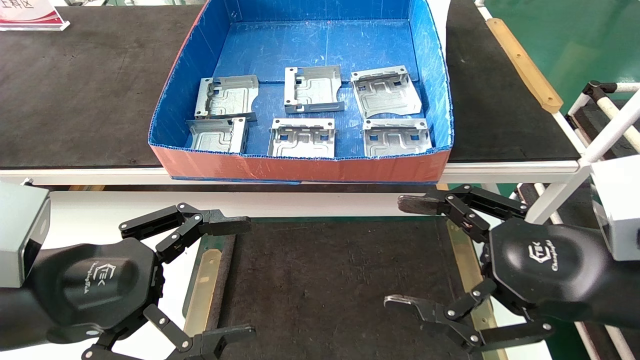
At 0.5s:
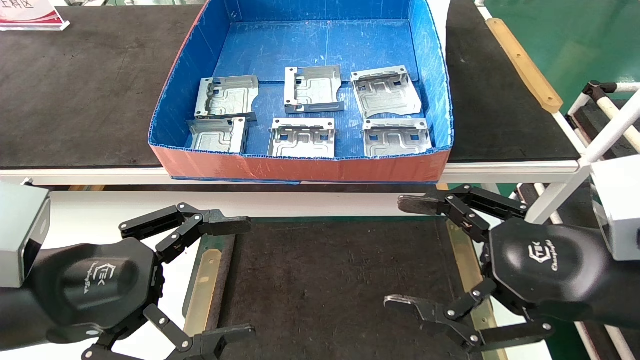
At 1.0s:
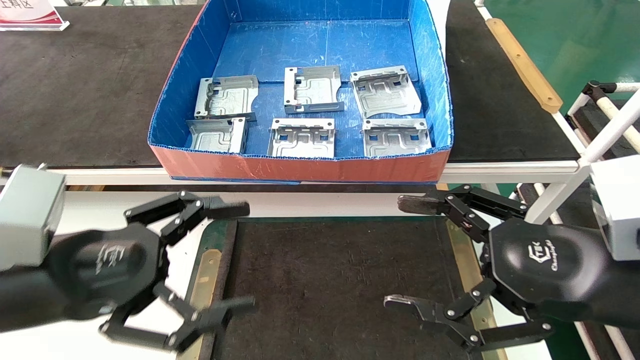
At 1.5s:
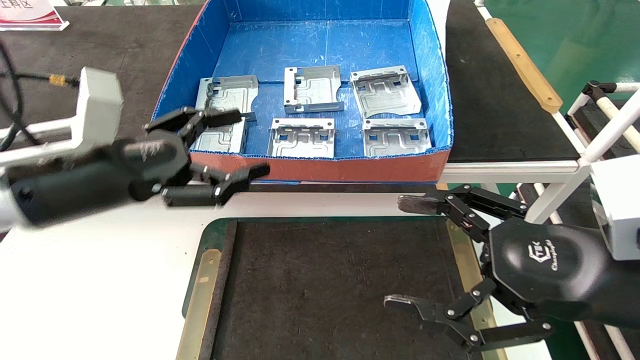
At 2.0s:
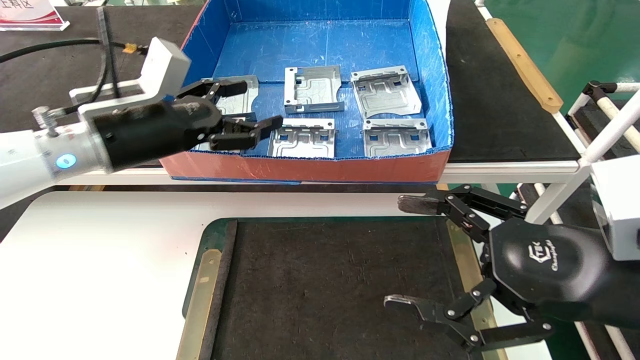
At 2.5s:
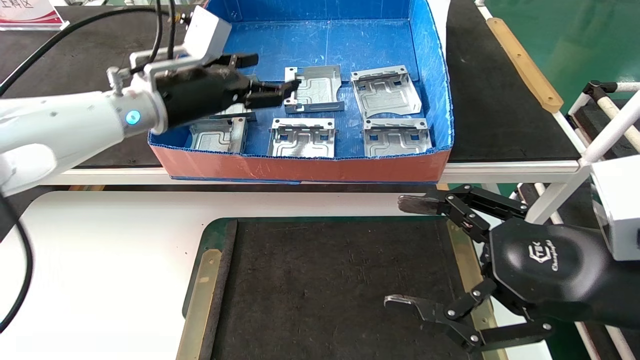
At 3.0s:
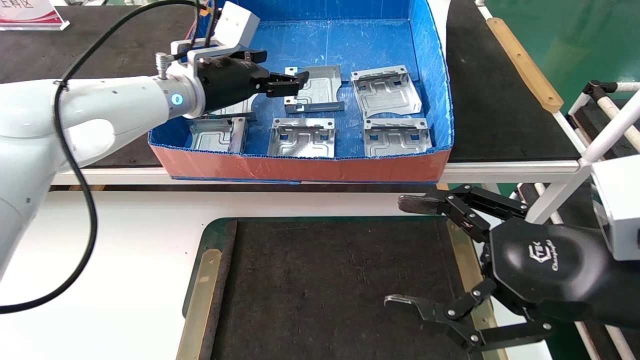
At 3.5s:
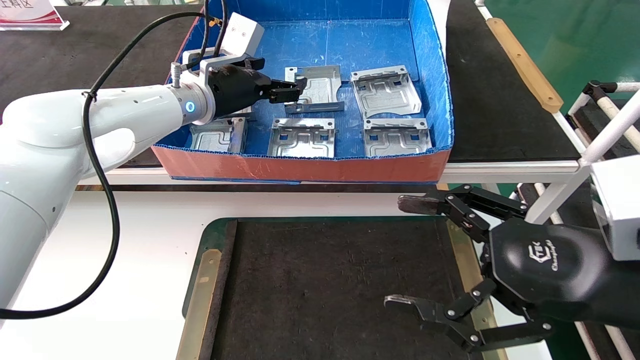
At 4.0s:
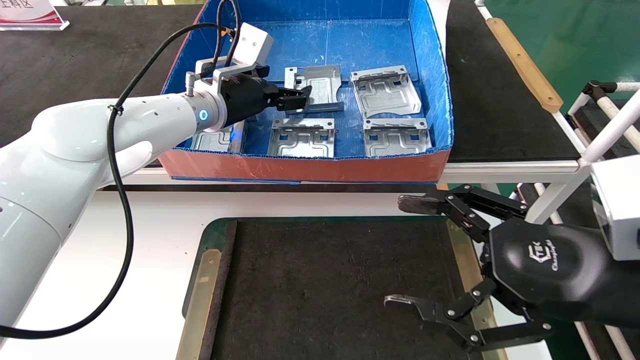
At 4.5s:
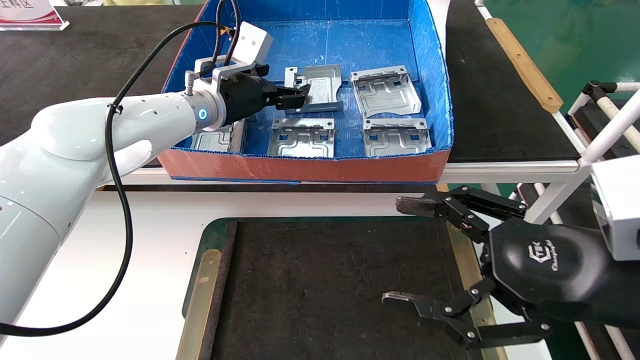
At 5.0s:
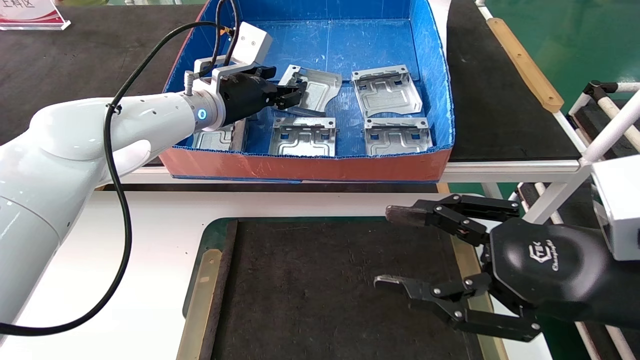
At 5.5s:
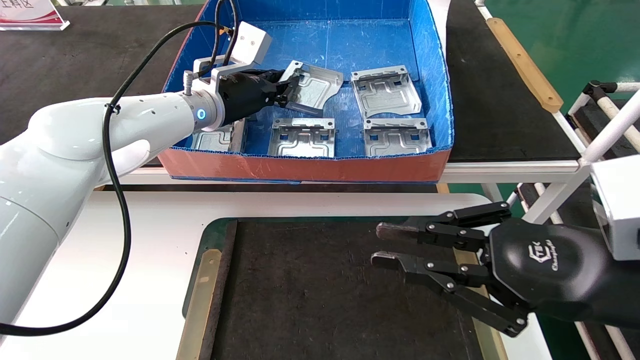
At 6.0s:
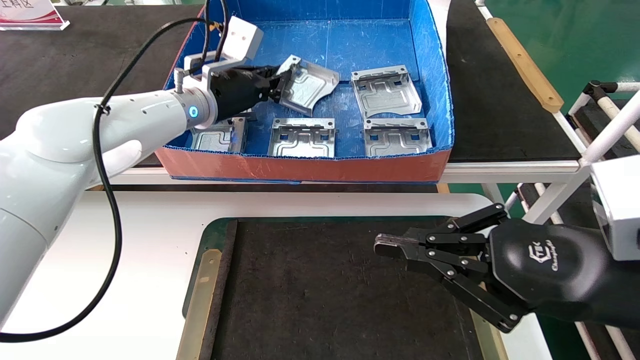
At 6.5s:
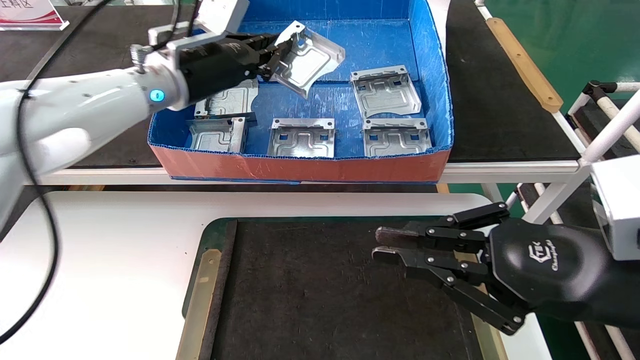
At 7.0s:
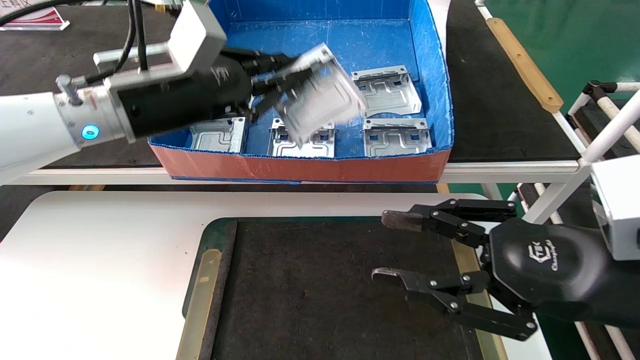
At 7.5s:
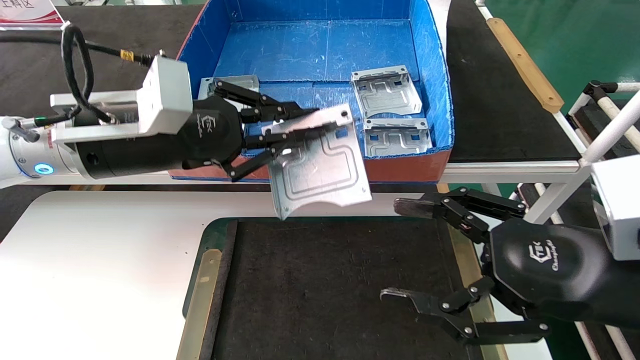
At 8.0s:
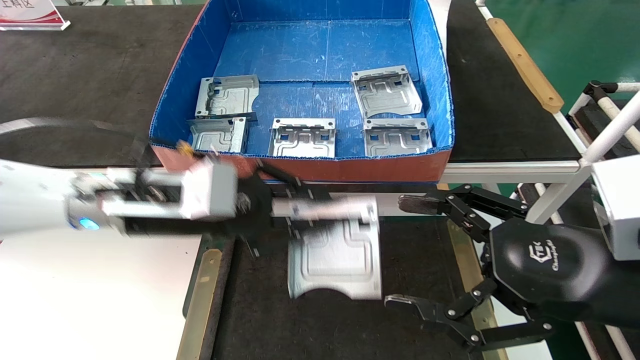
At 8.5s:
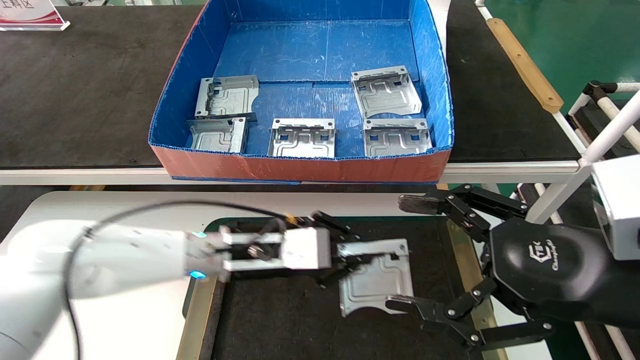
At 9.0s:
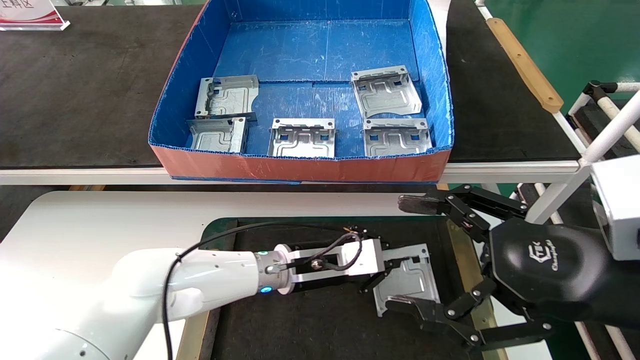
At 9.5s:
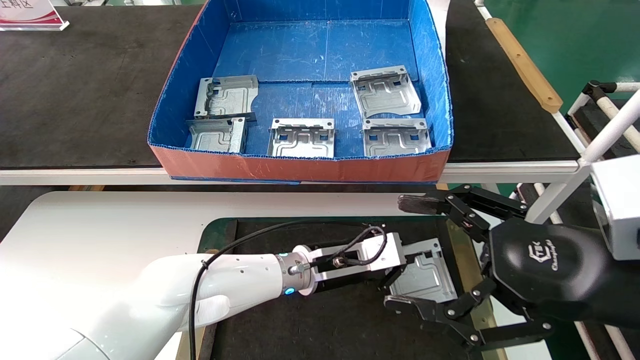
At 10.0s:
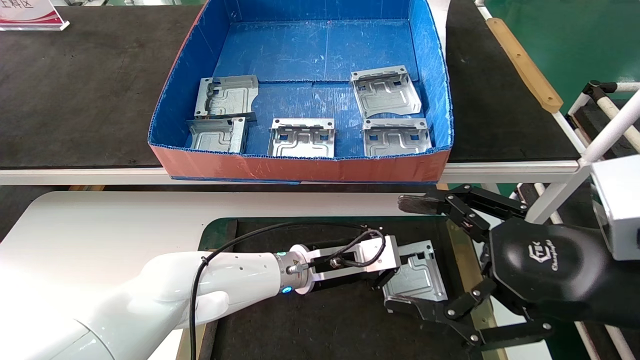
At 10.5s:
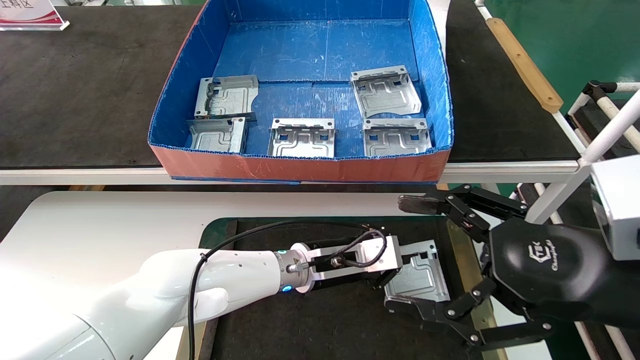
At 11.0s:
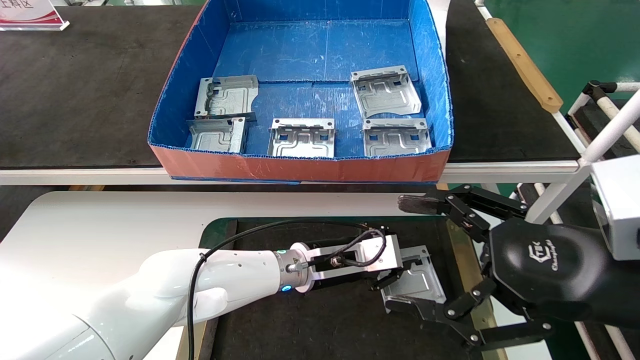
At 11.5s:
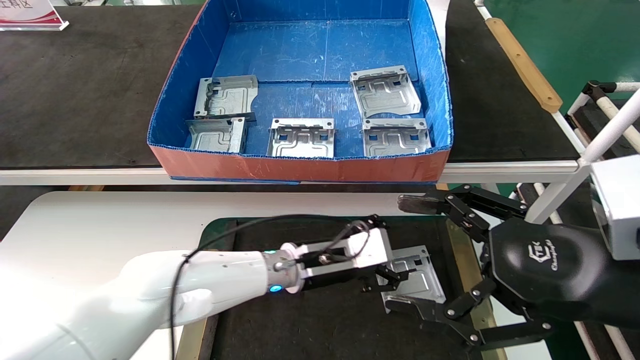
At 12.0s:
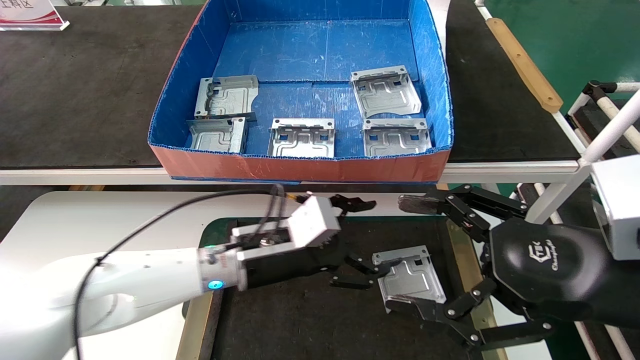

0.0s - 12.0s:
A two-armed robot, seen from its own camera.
Task of the whole recording: take the accessories out of the box and place them on the table.
Step, 1.0s - 6.0s: Pick up the hard drive bracket from the feeding area.
Step, 6.5s - 11.0s: Place the hard drive bracket into the box.
0.0s - 2.0s: The left gripper goes about 20 cm forward and upward.
2.0s - 4.0s: The left gripper moves forward and to the right, about 15 cm.
4.0s - 6.0s: The left gripper closes its fingers. The right gripper closes.
6.0s - 8.0s: The right gripper opens. Meanwhile the left gripper moves backward and downward, some 15 cm.
8.0s - 10.0s: The left gripper goes about 25 cm to the right, downward and forward.
10.0s - 12.0s: The left gripper goes roughly 10 cm to the left and backward, and opens its fingers.
